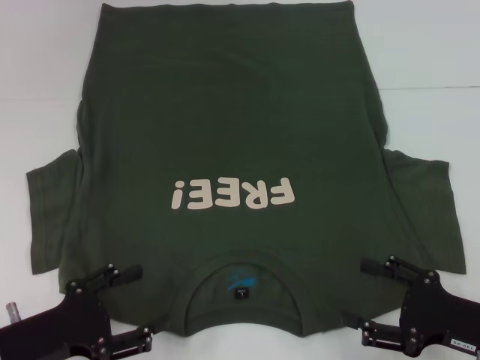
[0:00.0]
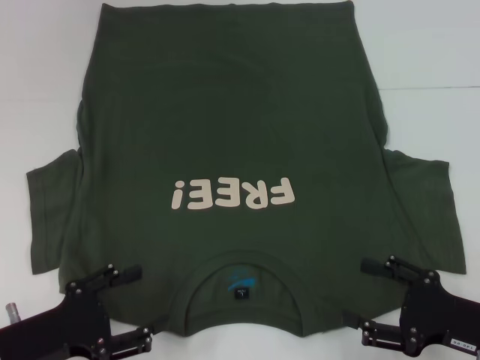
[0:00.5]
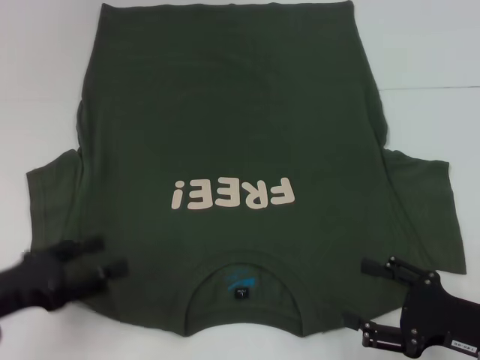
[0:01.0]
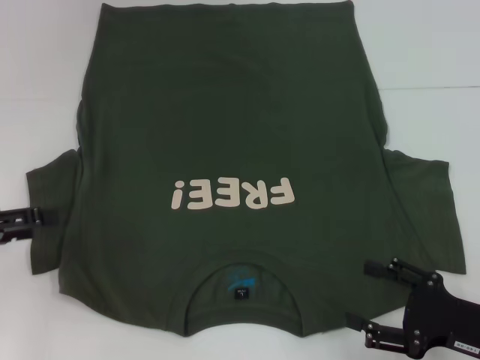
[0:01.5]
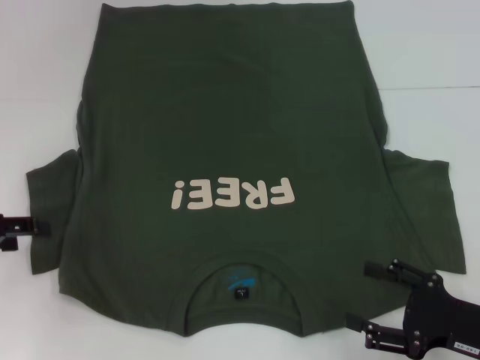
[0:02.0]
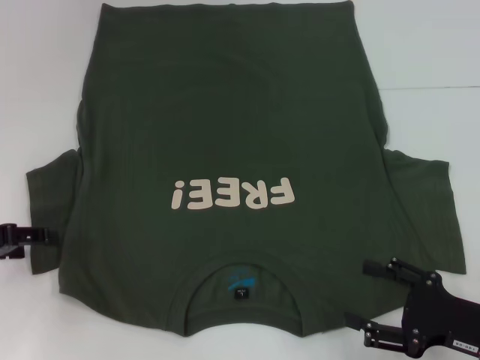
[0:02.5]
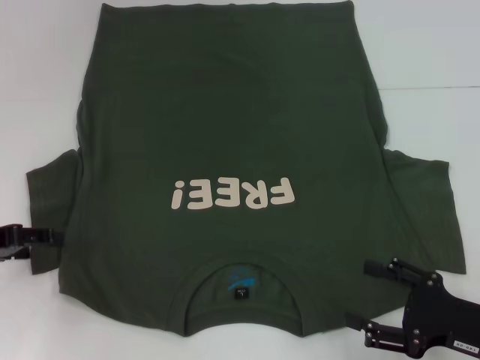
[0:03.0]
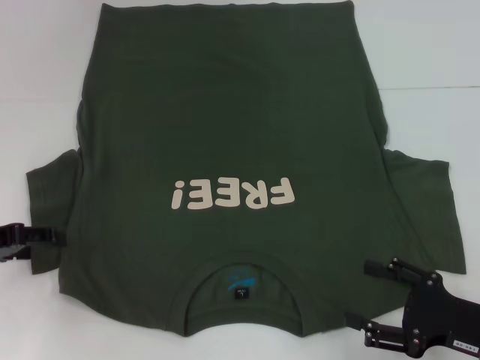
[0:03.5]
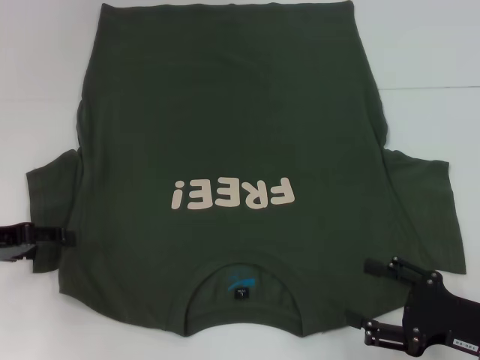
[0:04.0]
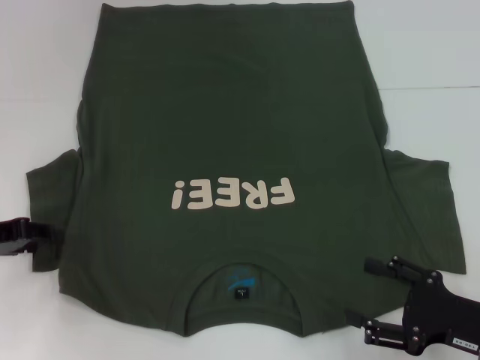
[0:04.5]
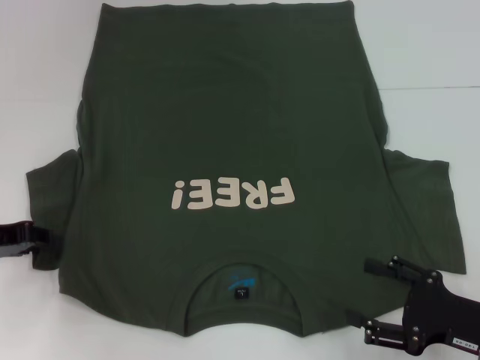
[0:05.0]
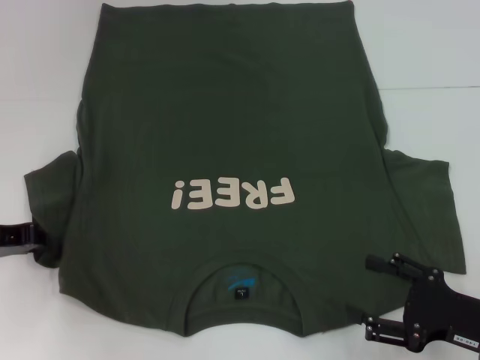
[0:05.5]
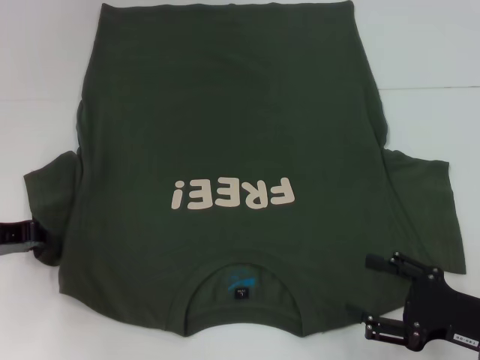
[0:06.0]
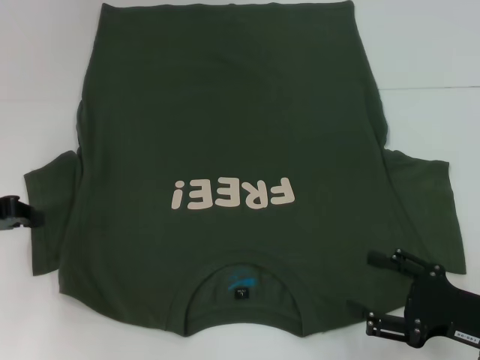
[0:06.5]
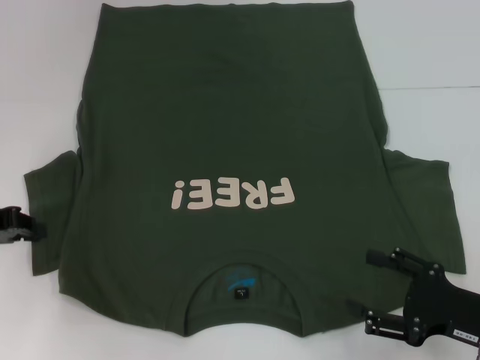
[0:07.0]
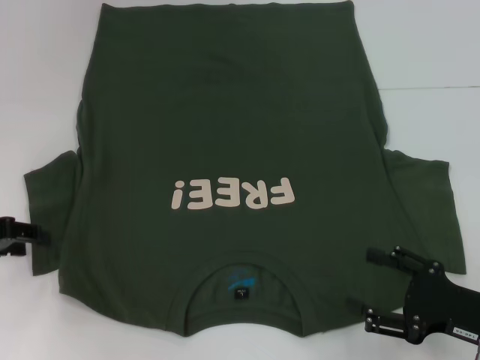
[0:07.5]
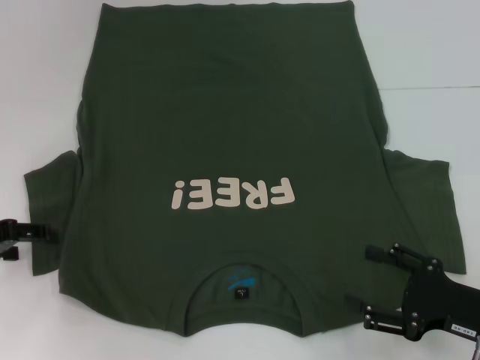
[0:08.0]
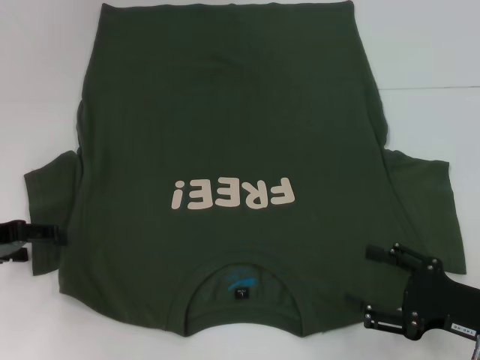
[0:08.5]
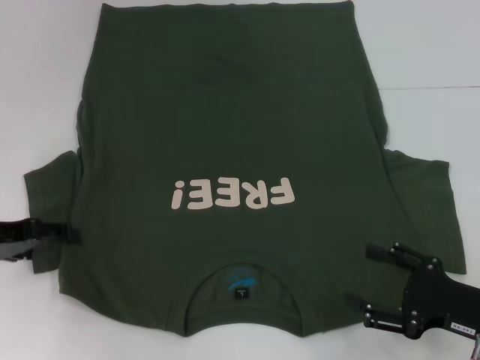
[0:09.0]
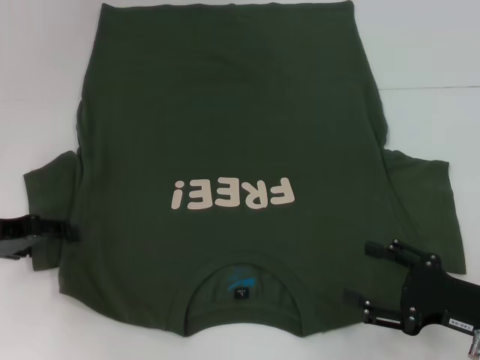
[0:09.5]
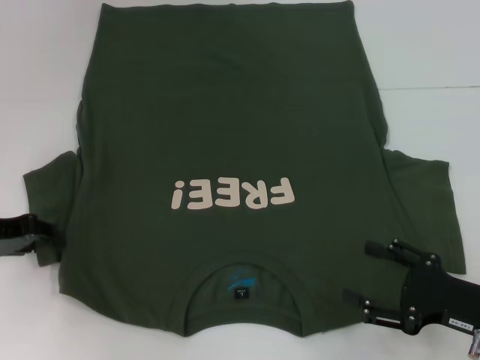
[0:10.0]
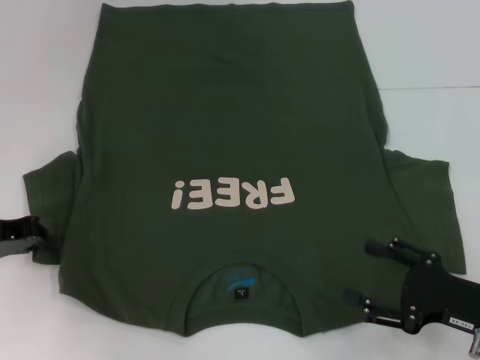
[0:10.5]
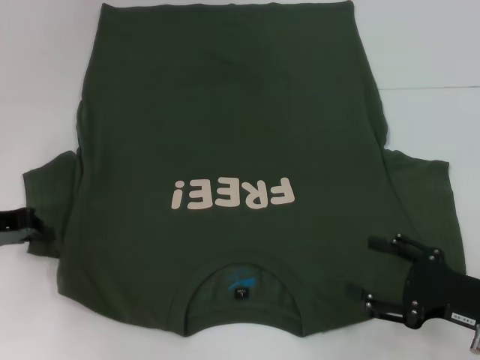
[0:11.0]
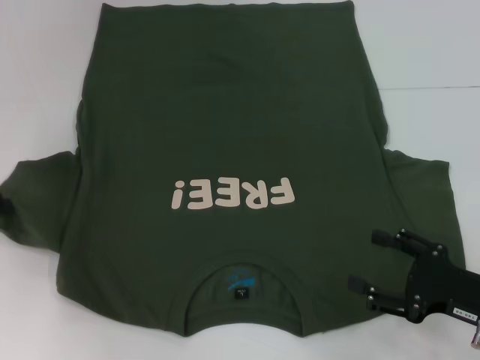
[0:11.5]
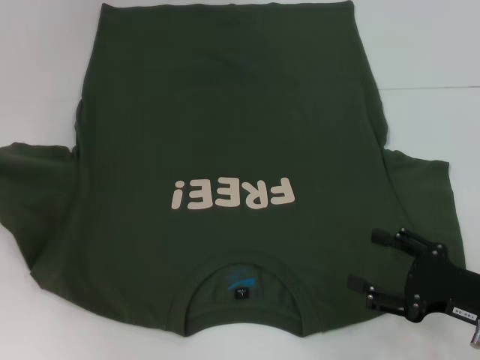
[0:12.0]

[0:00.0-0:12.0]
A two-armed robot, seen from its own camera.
0:00.0 to 0:02.0: The left gripper travels forward, to the left and upward by some 15 cm.
0:02.0 to 0:04.0: The grippers move only a little.
0:04.0 to 0:06.0: The left gripper closes.
0:06.0 to 0:08.0: The left gripper opens its fingers.
0:08.0 to 0:10.0: The grippers make only small movements.
0:10.0 to 0:12.0: The left gripper shifts about 10 cm upward and to the left, and closes.

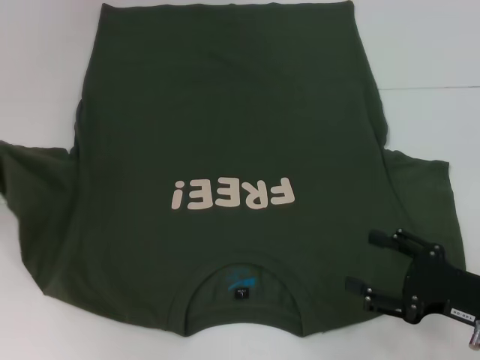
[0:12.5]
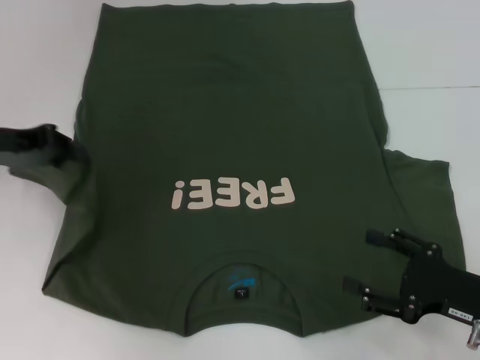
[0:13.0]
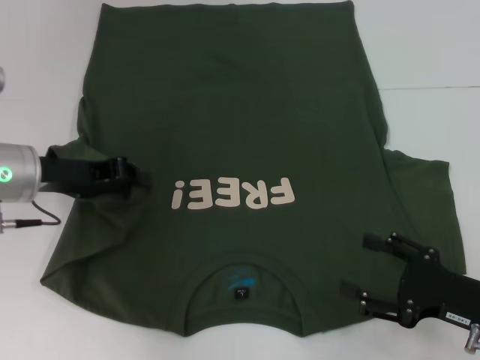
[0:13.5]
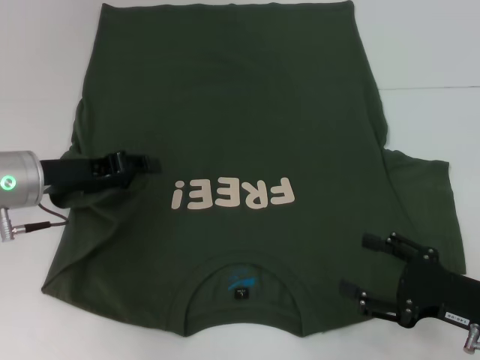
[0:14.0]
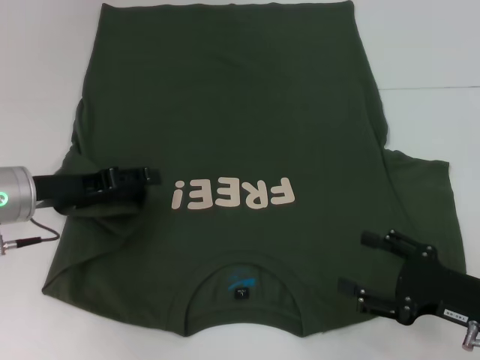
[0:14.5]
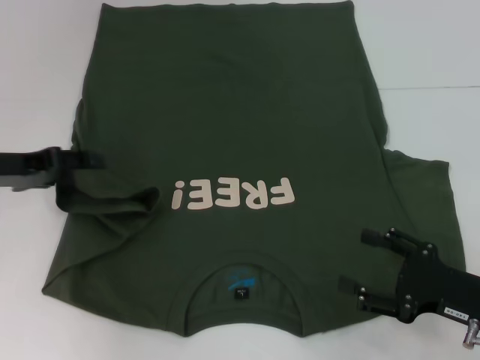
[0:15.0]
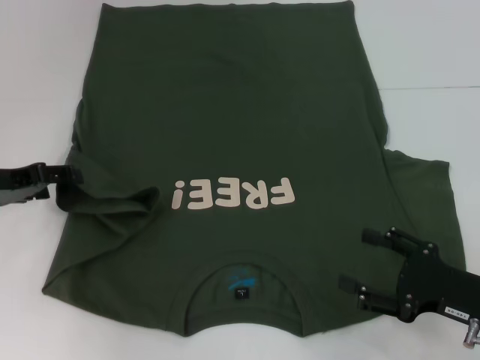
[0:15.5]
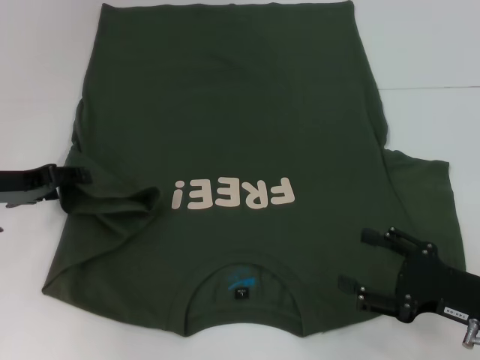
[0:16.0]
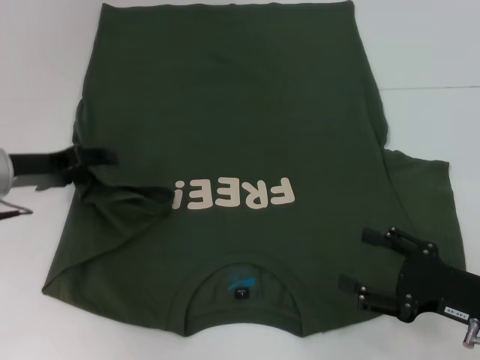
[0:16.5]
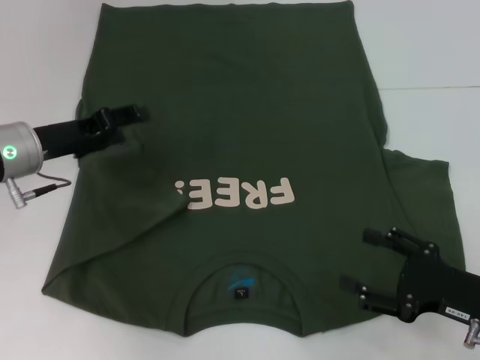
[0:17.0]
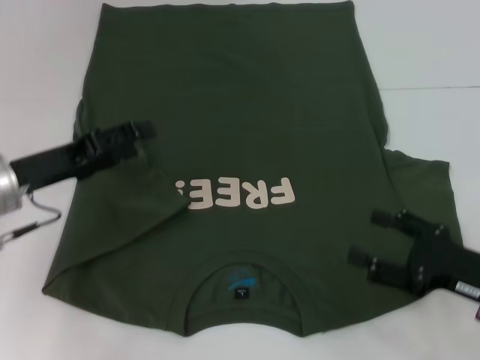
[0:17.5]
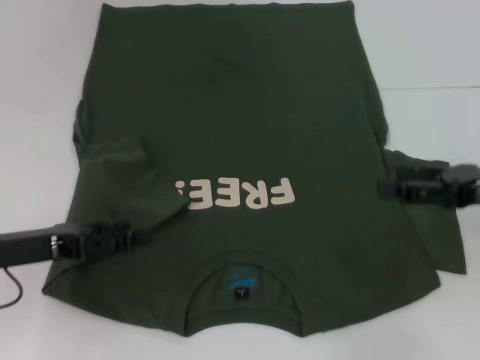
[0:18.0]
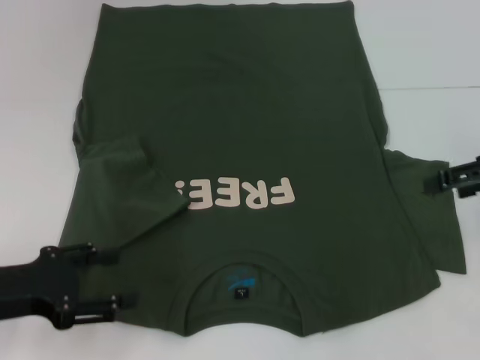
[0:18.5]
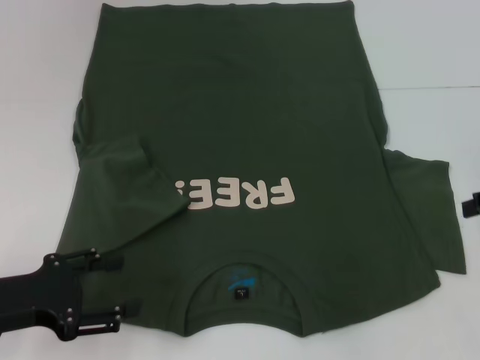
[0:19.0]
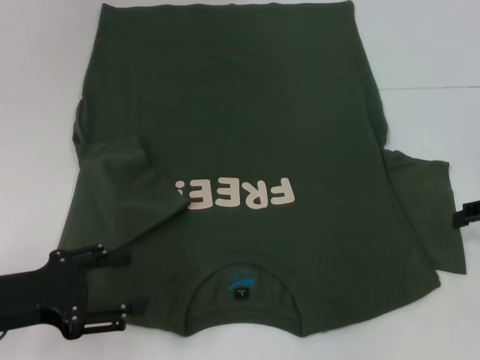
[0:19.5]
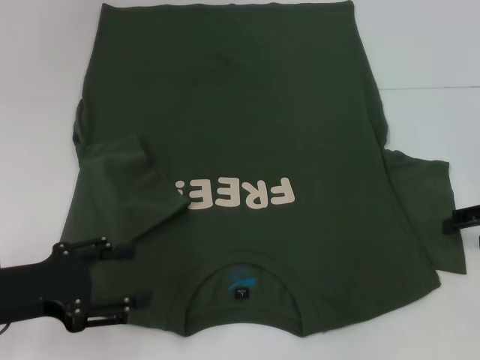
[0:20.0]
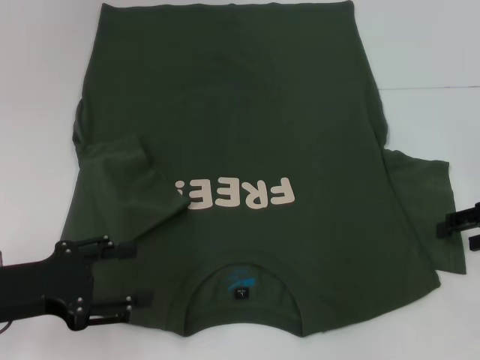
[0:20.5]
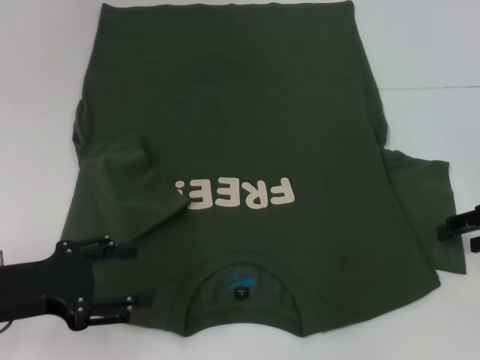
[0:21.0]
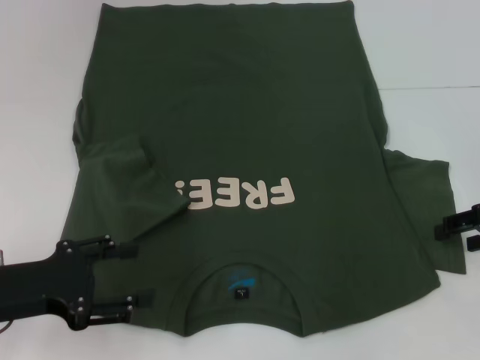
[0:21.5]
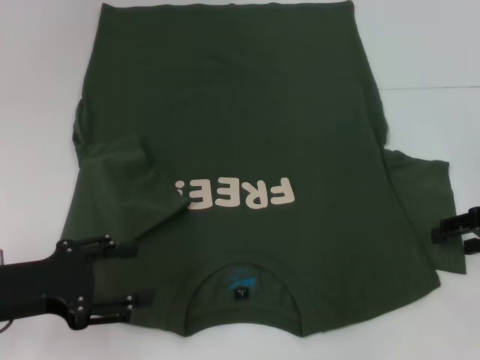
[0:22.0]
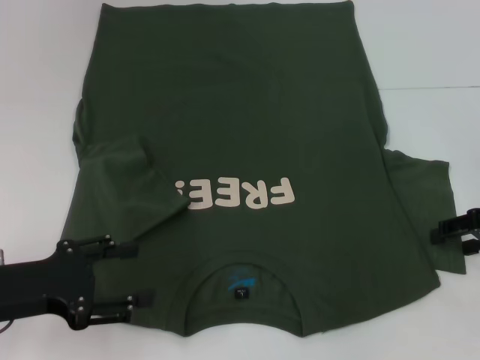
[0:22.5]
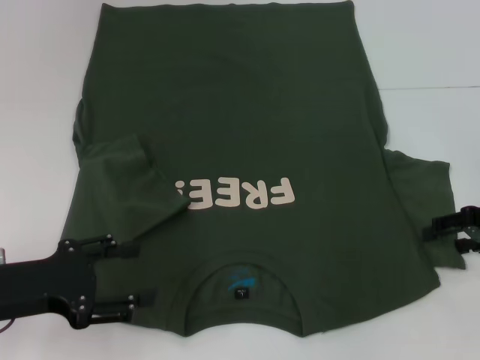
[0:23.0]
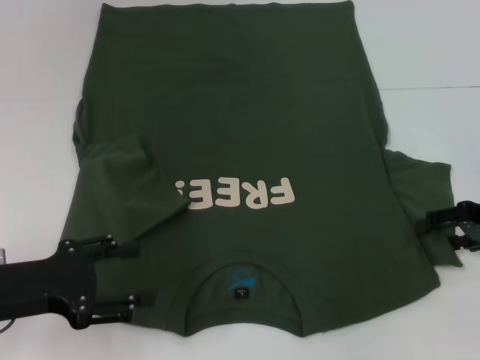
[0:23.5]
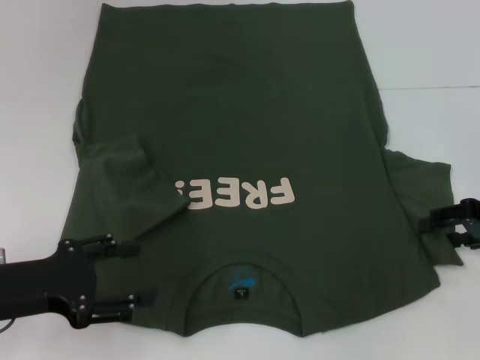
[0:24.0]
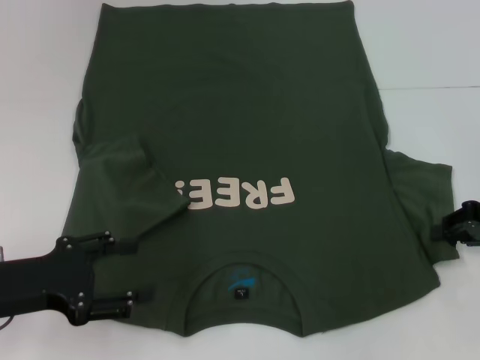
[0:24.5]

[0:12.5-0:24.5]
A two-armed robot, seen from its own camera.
Step, 0:12.5 to 0:17.0: Fold the bottom left sleeve with your left hand.
0:12.5 to 0:14.5: The left gripper moves to the right and downward, about 15 cm, and opens.
0:16.5 to 0:18.5: The left gripper is displaced backward by approximately 15 cm. The right gripper shifts about 20 cm upward and forward.
0:18.5 to 0:20.5: The right gripper travels downward by roughly 10 cm.
0:20.5 to 0:22.5: Neither gripper changes place.
0:22.5 to 0:24.5: The right gripper closes its fingers.

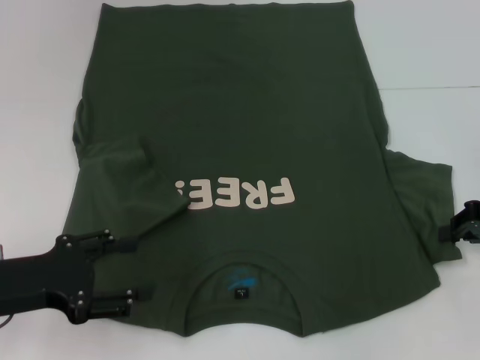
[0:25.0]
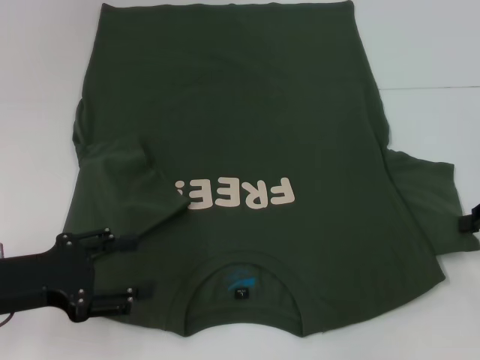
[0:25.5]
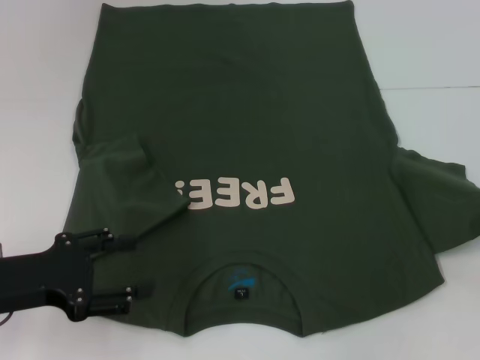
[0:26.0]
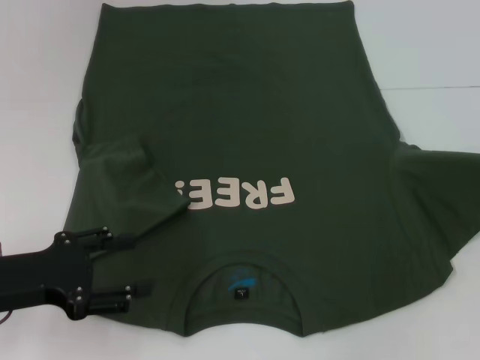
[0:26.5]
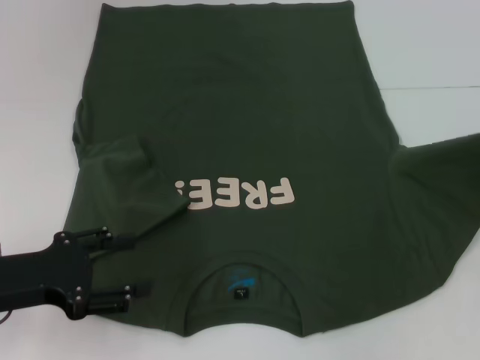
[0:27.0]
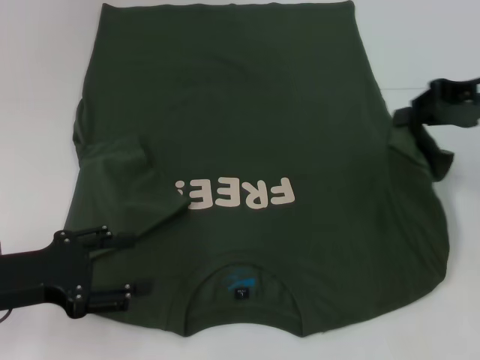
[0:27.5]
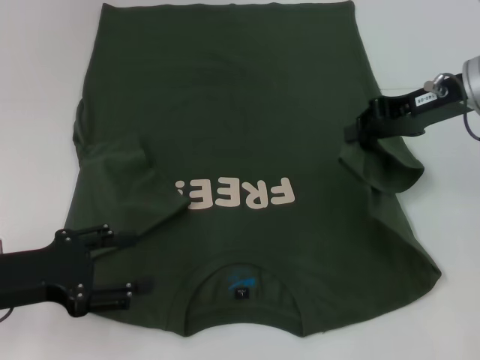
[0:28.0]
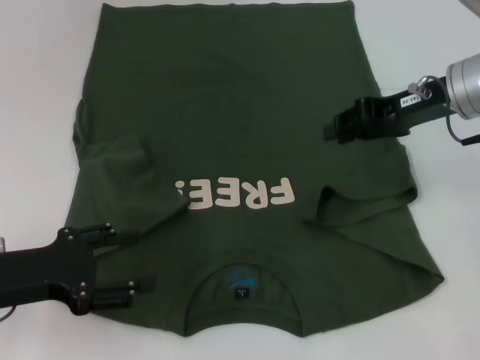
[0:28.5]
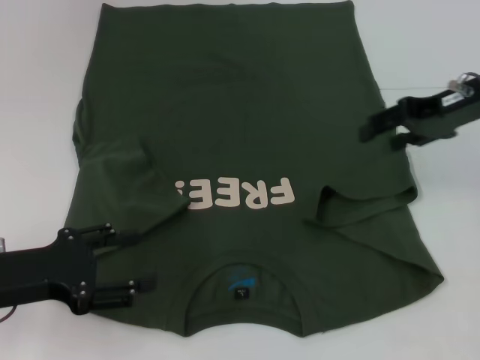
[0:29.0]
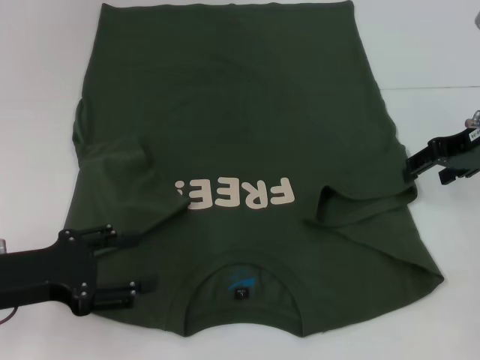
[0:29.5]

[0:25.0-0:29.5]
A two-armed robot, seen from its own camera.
0:25.0 to 0:27.0: The right gripper heads upward, covering about 10 cm.
0:27.0 to 0:29.5: The right gripper is displaced to the left and forward by about 15 cm, and opens up.
